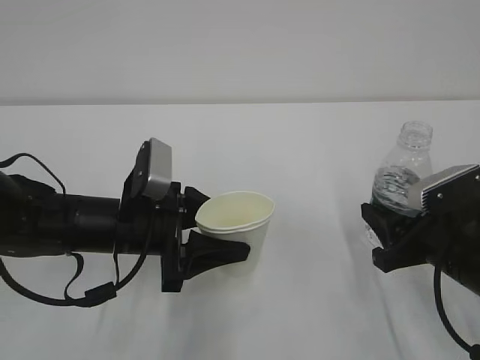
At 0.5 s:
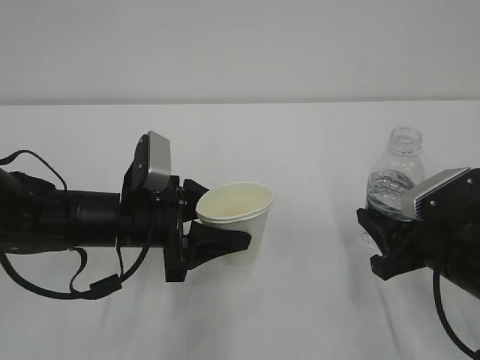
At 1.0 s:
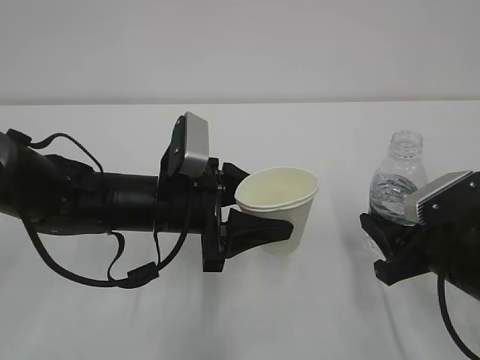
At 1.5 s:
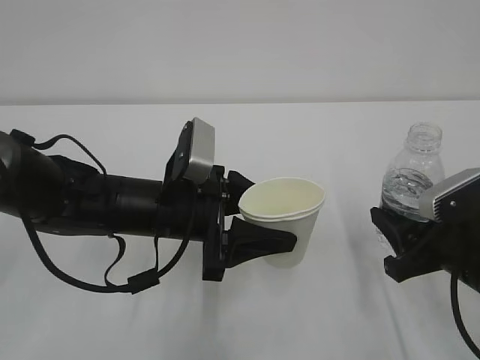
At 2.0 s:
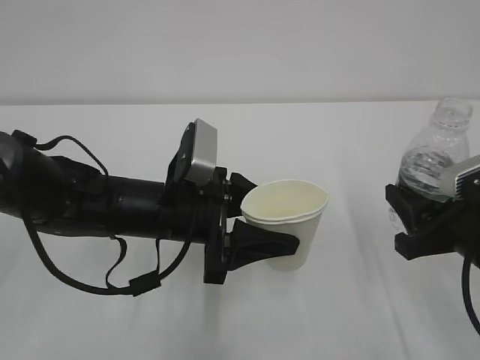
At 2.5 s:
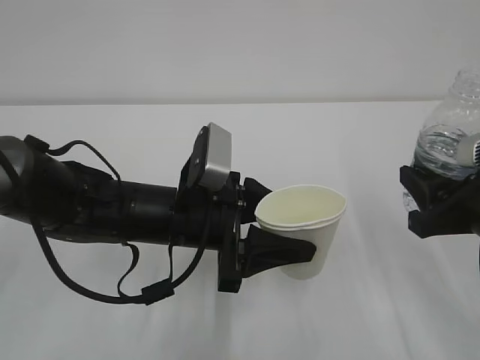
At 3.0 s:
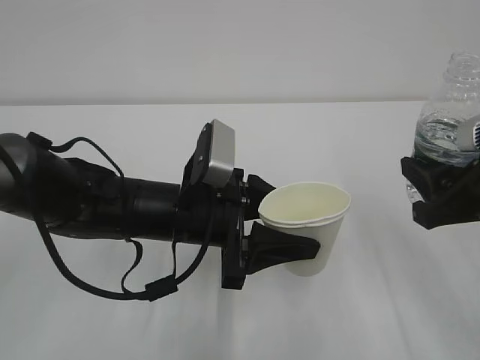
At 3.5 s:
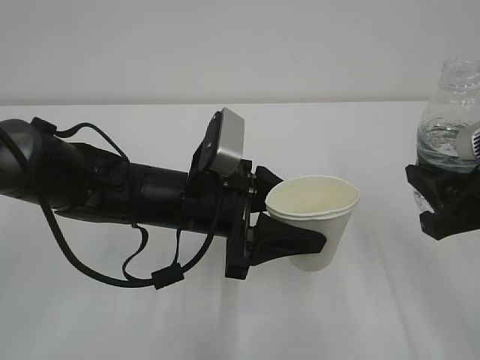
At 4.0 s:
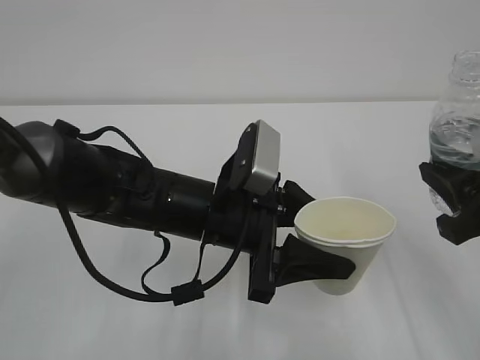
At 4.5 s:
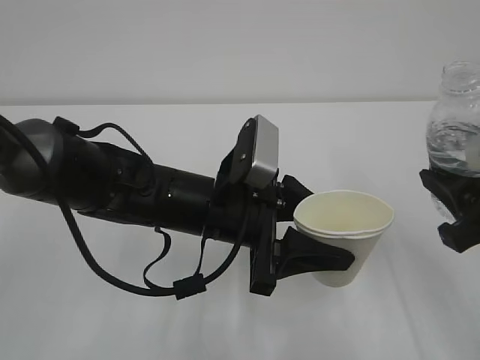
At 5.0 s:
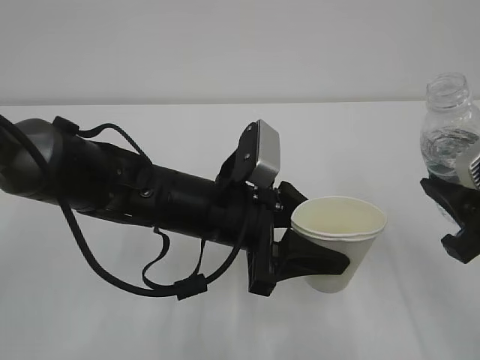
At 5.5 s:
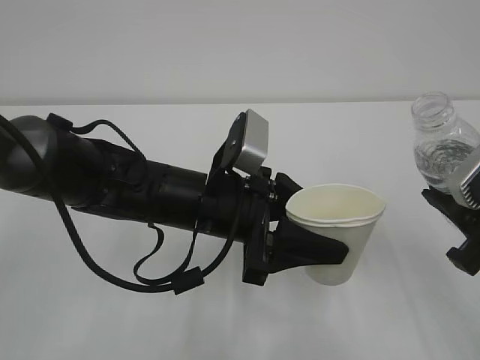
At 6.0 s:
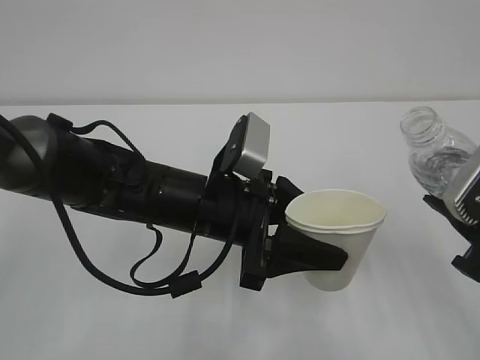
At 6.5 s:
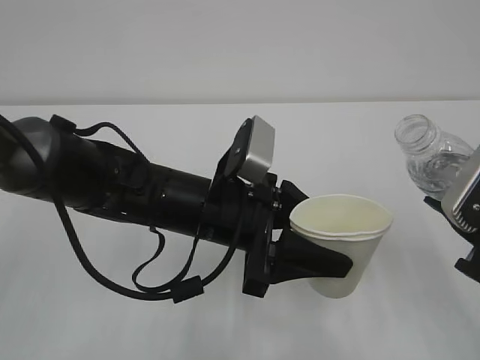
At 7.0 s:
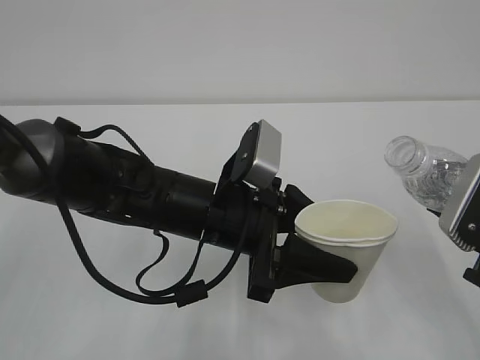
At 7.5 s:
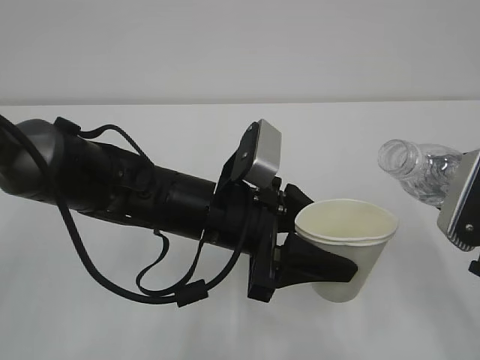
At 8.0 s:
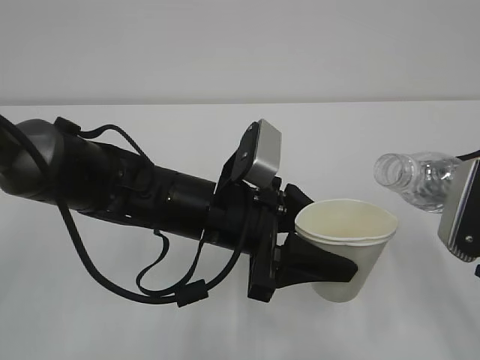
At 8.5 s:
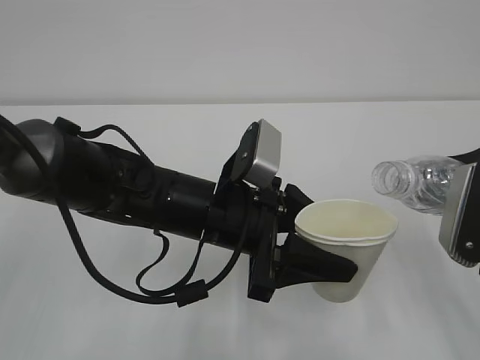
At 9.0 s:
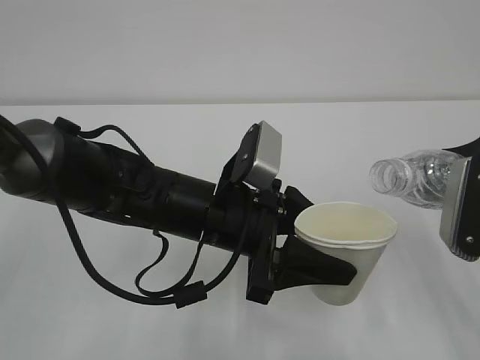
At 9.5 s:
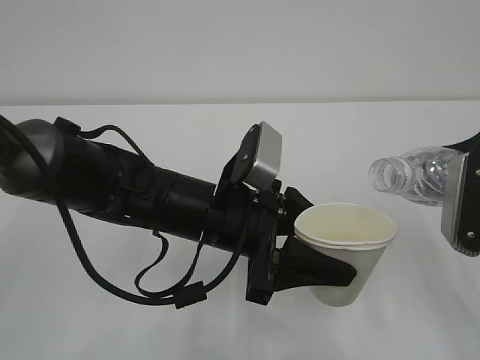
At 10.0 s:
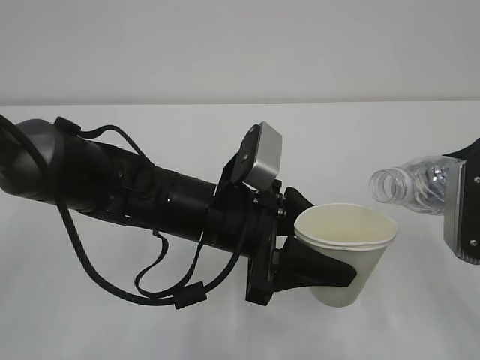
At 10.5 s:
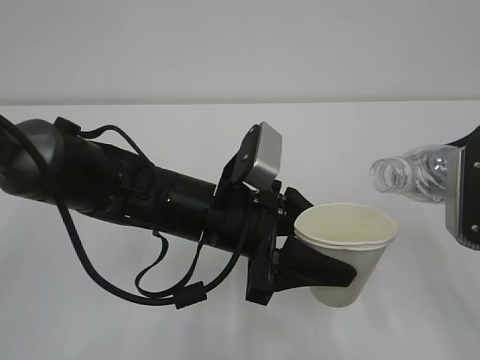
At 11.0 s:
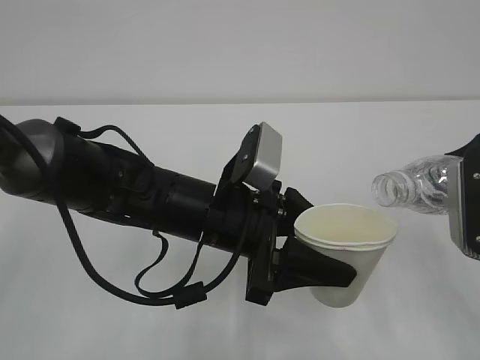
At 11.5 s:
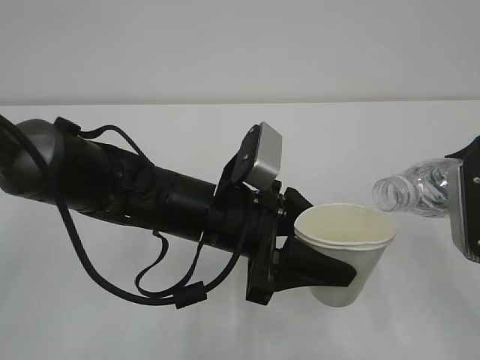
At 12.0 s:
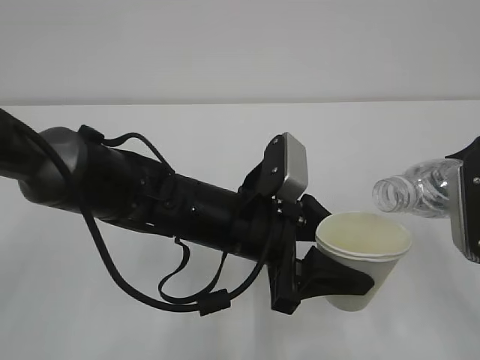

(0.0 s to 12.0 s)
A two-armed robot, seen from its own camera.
0.0 s - 2.0 s: The left gripper travels to the right by some 5 cm.
2.0 s - 4.0 s: The right gripper goes approximately 5 cm upward; the left gripper ends up approximately 5 cm from where it was.
8.0 s - 12.0 s: The grippers stay close to where they were, moving slightly.

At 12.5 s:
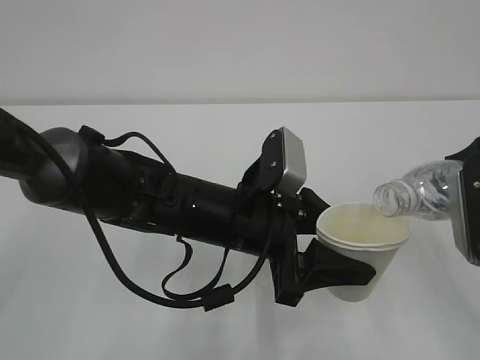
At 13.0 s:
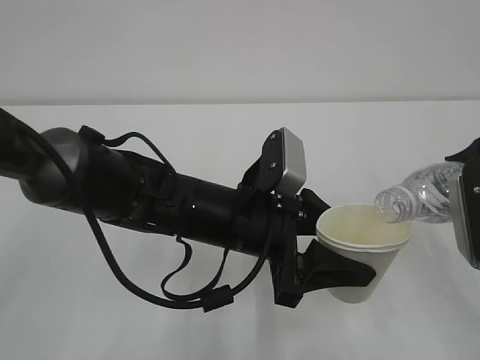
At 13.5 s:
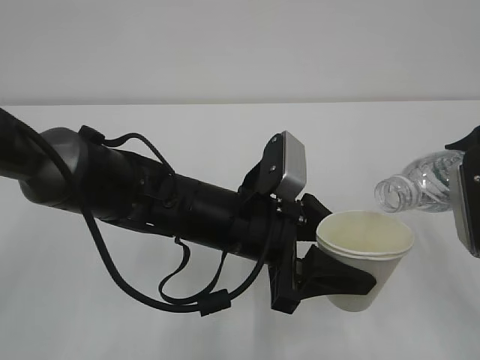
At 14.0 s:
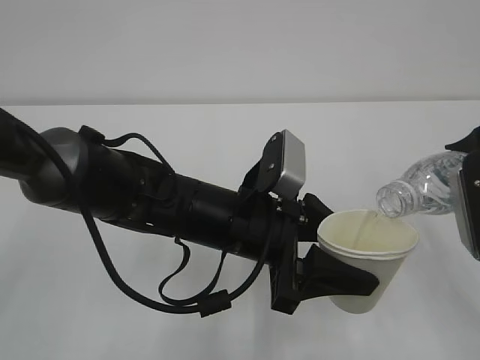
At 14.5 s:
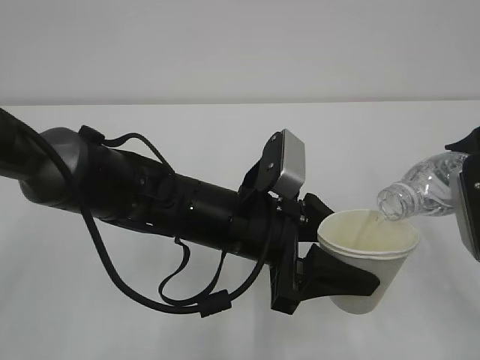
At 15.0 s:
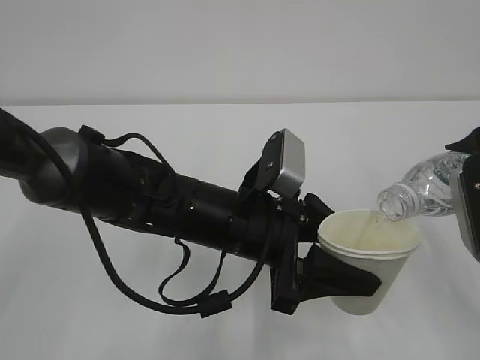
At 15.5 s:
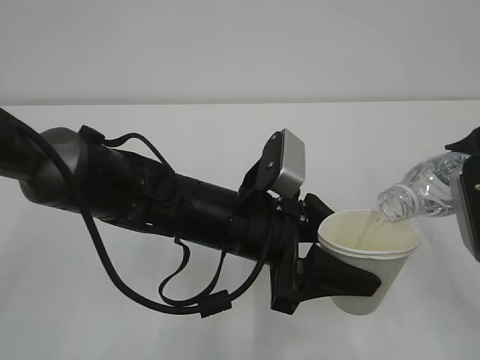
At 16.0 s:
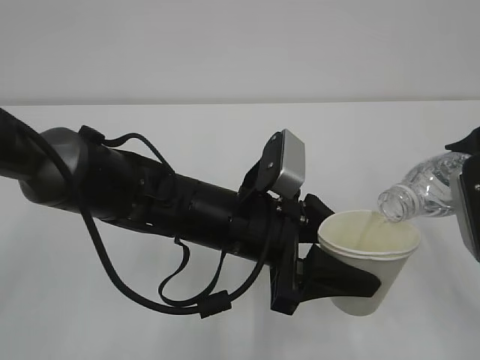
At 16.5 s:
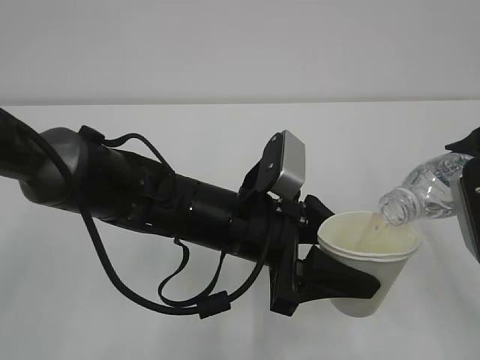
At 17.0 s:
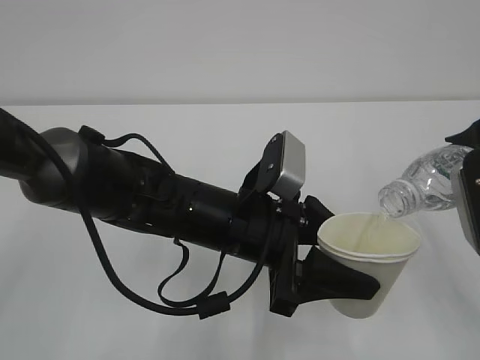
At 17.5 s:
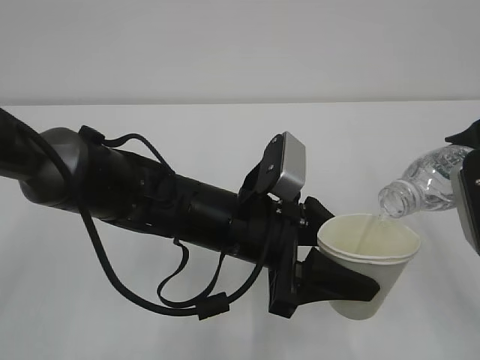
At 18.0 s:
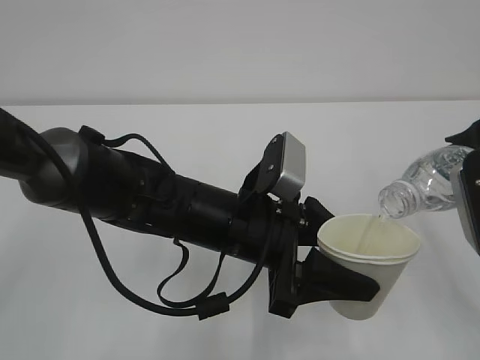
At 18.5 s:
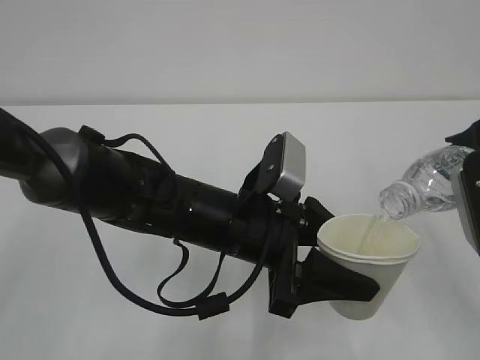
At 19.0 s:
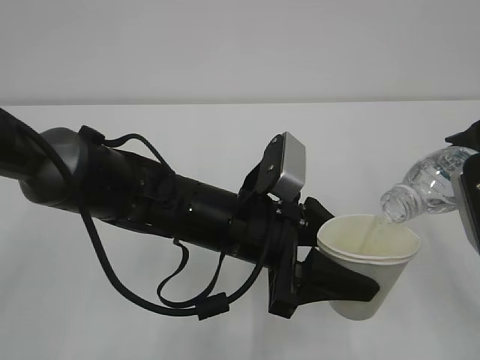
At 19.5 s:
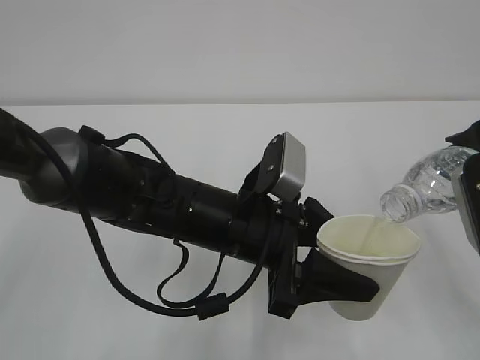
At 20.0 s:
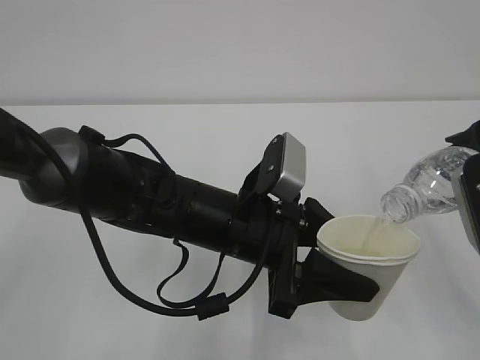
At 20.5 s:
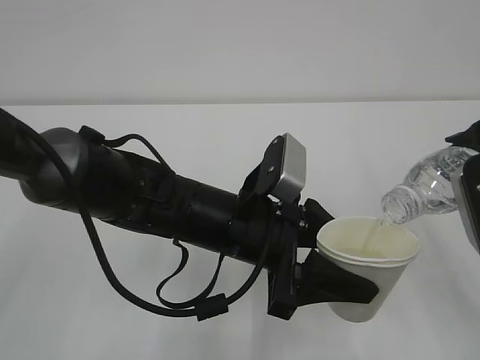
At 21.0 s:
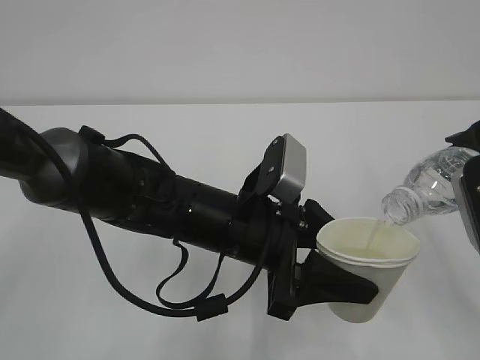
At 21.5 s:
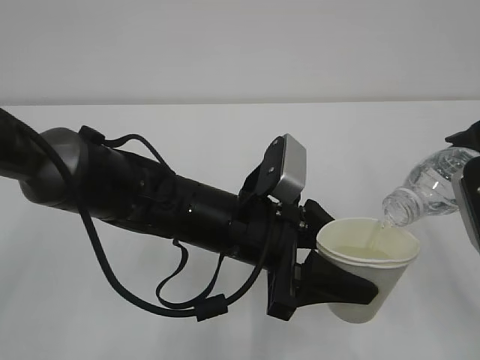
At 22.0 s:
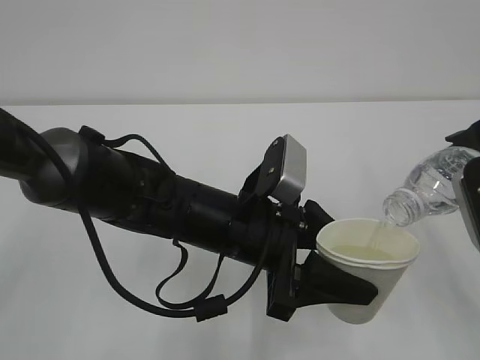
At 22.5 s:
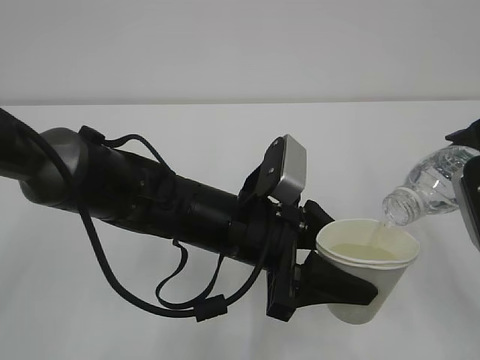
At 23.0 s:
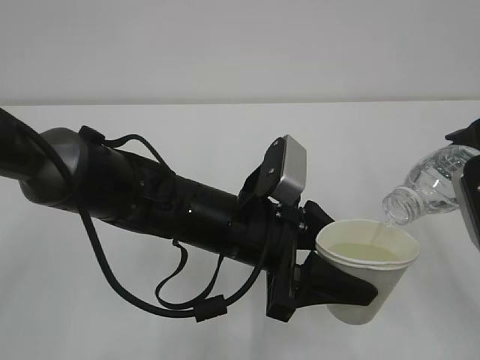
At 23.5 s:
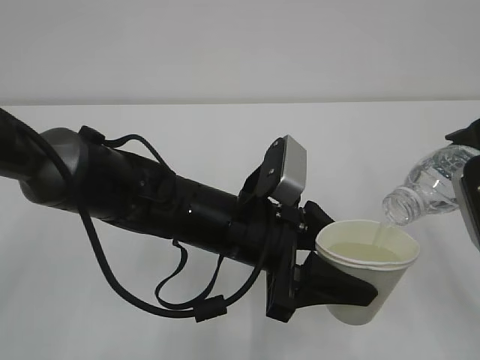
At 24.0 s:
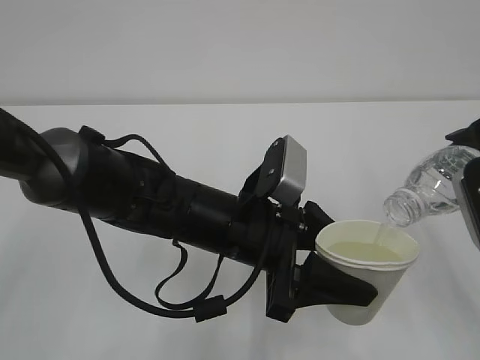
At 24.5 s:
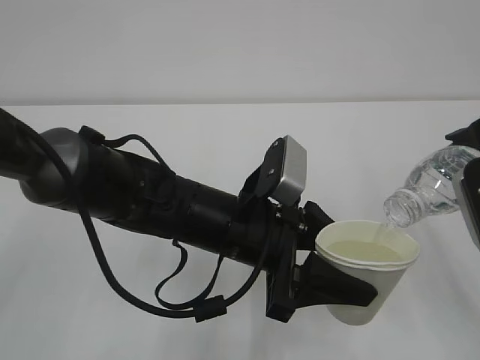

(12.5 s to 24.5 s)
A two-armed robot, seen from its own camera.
12.5 s - 14.5 s: The grippers move only a little.
14.5 s - 18.5 s: The two grippers keep their place.
18.5 s - 22.5 s: The two grippers keep their place.
22.5 s - 24.5 s: Both grippers stay put.

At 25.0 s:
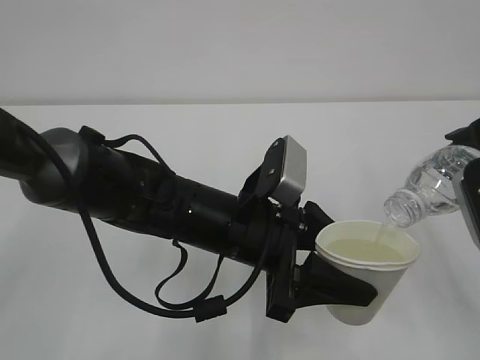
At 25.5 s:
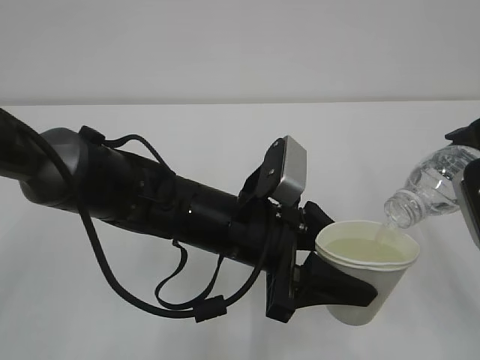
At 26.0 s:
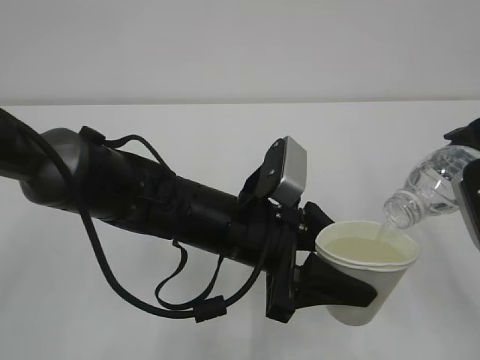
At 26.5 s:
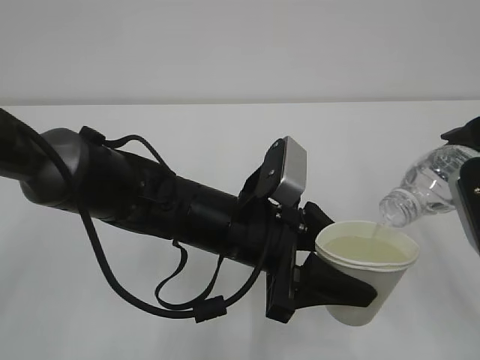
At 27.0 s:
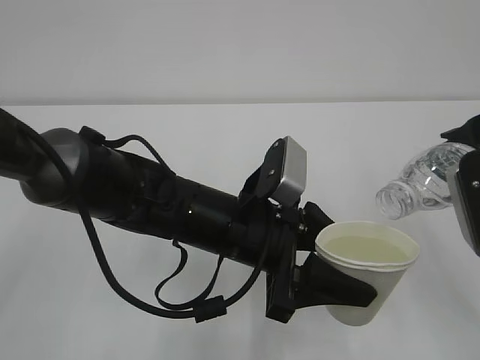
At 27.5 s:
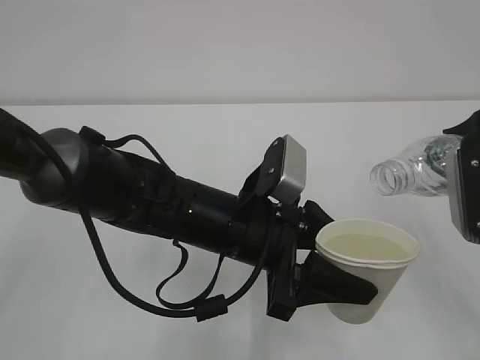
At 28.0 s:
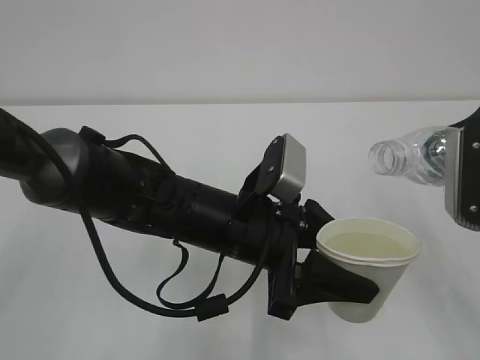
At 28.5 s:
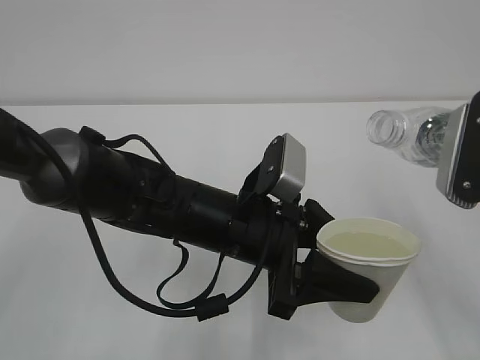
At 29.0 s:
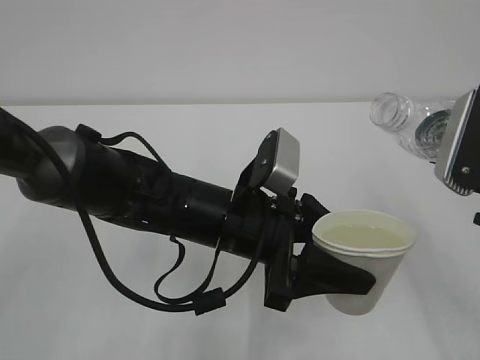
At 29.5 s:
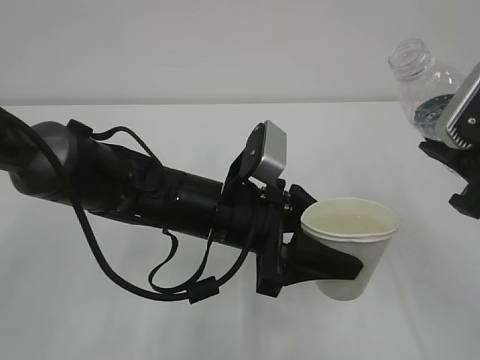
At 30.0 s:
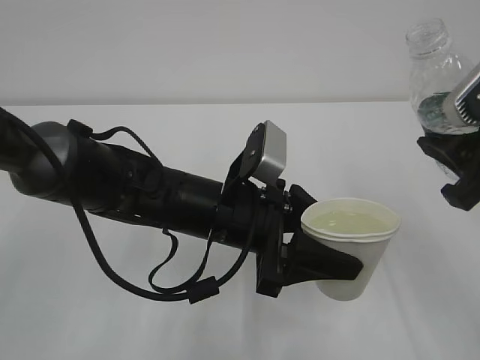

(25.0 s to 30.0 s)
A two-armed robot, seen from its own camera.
25.0 s - 27.5 s: The grippers make only small movements.
